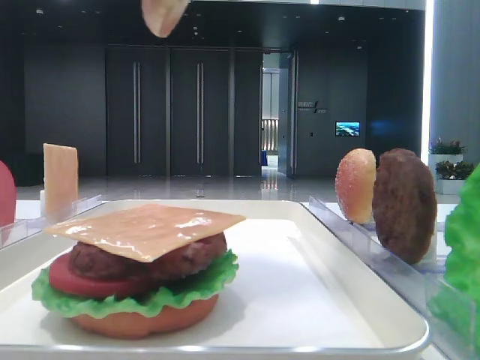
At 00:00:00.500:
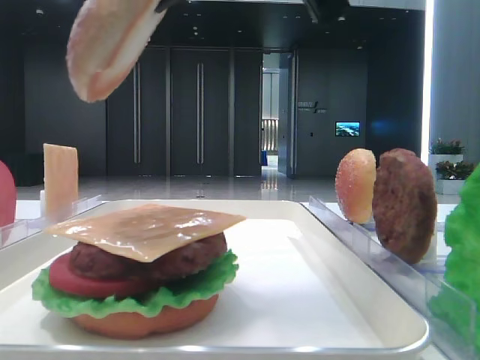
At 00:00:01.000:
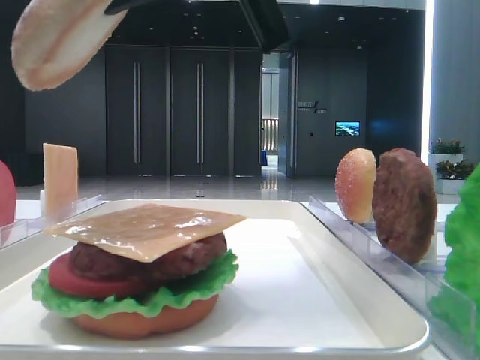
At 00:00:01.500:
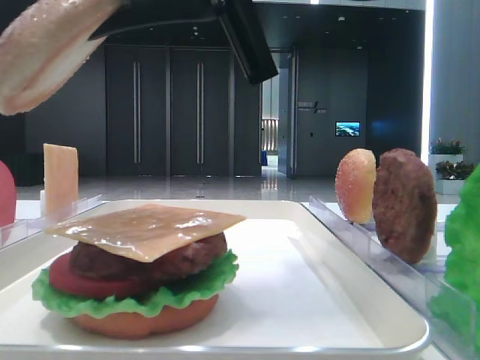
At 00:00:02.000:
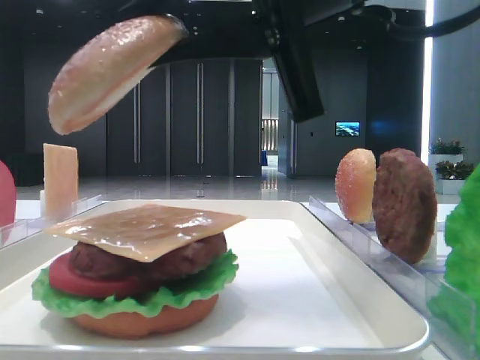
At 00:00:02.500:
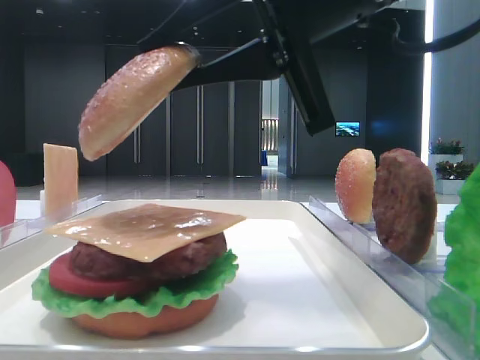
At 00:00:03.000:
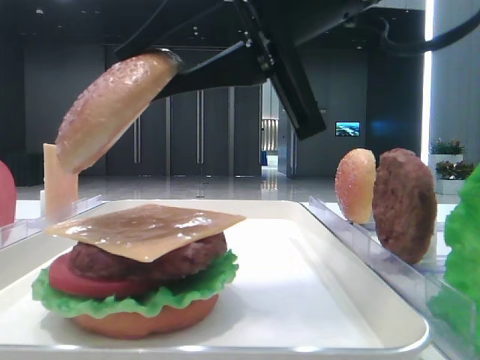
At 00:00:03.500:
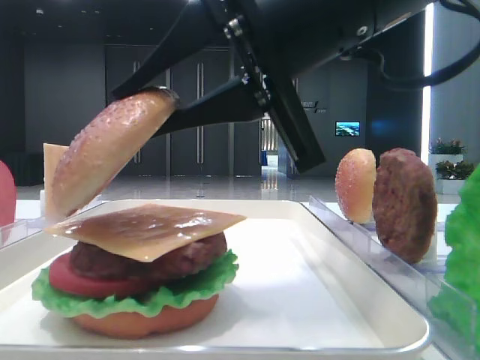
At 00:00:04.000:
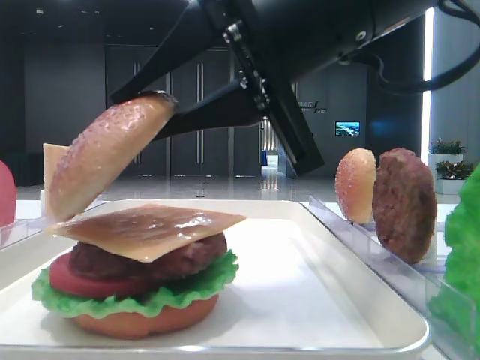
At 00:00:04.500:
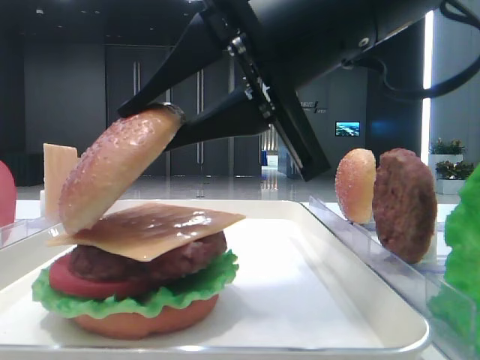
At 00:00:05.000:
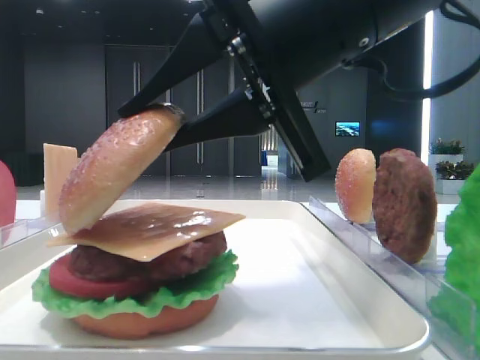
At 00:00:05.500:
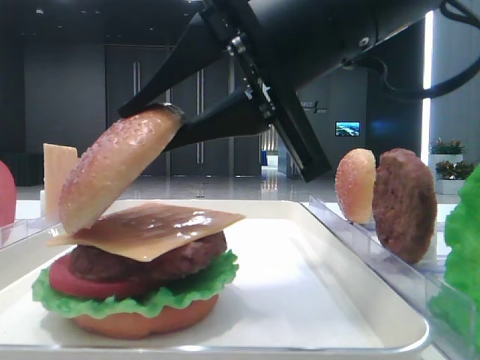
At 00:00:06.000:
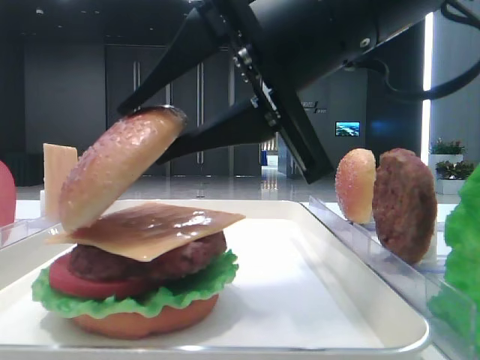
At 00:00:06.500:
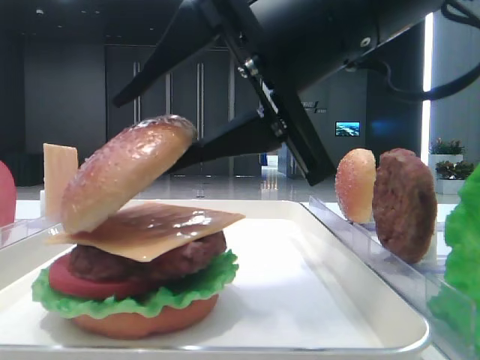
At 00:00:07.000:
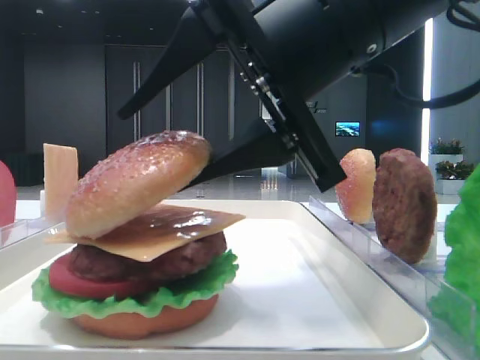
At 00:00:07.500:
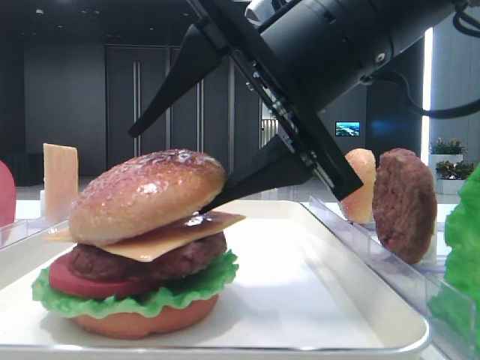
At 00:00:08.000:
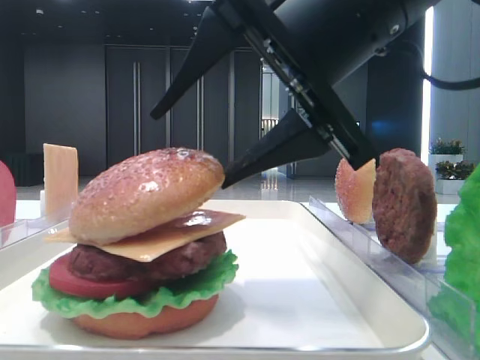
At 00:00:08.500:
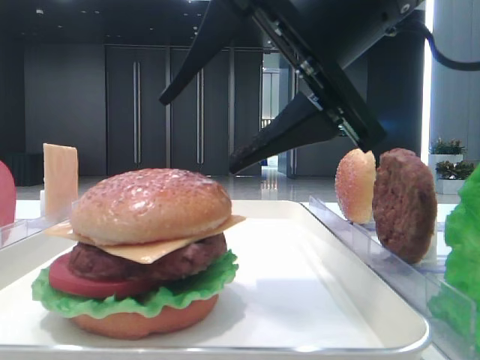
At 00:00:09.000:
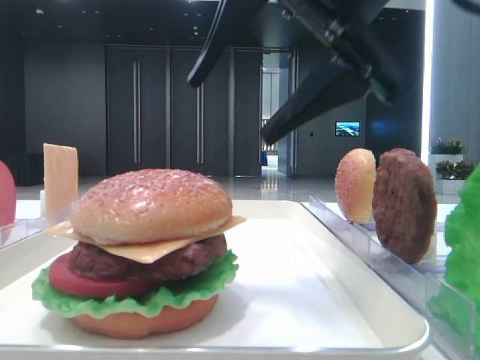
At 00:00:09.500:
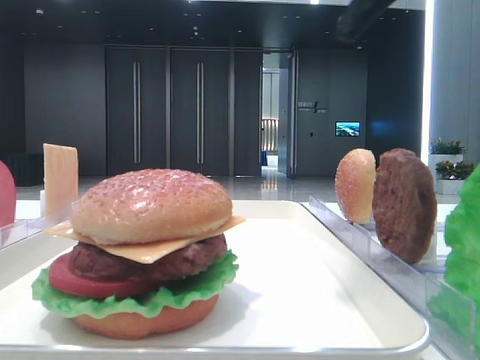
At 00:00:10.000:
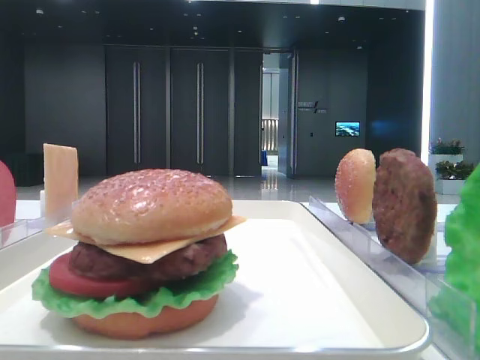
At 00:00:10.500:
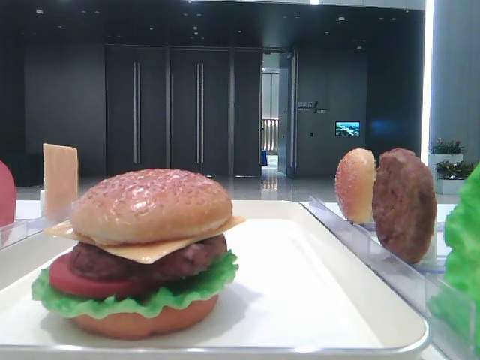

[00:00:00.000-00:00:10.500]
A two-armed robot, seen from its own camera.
Step, 00:00:00.000 to 00:00:08.000: Place the top bread slice on the cheese with the right hand.
00:00:00.000 to 00:00:02.000: The right gripper goes approximately 10 cm downward.
00:00:02.000 to 00:00:04.000: The grippers move only a little.
00:00:04.000 to 00:00:06.500: The right gripper opens.
00:00:06.500 to 00:00:08.500: The right gripper opens.
00:00:08.500 to 00:00:10.500: The right gripper goes some 20 cm to the right and upward.

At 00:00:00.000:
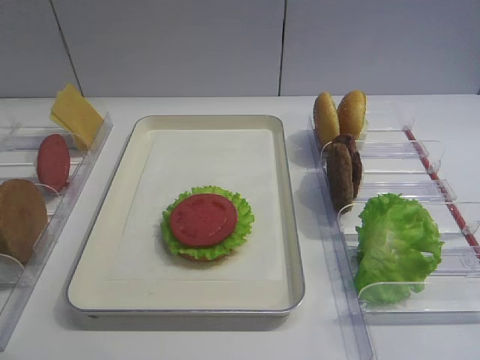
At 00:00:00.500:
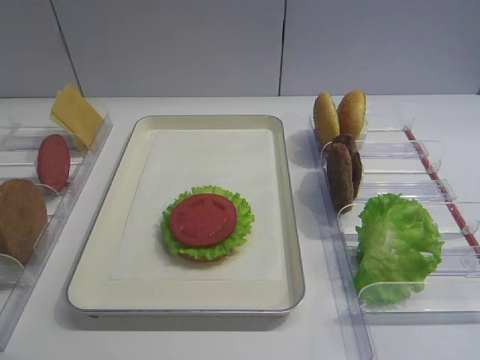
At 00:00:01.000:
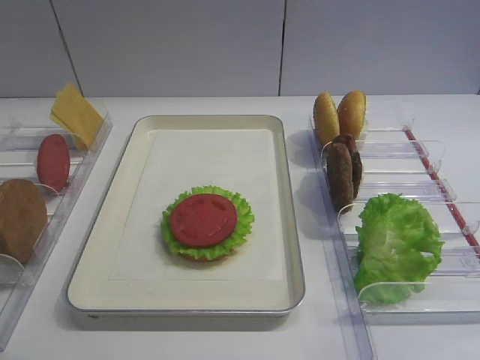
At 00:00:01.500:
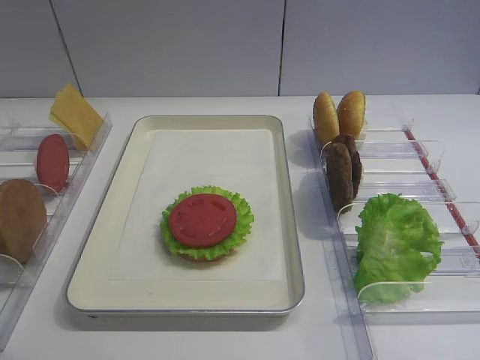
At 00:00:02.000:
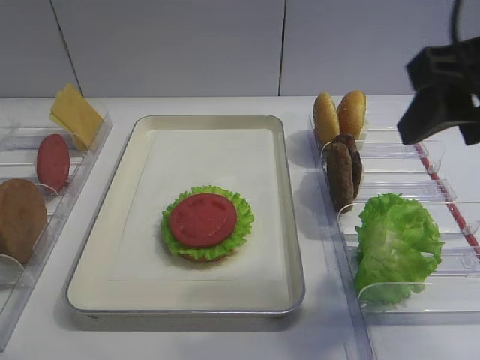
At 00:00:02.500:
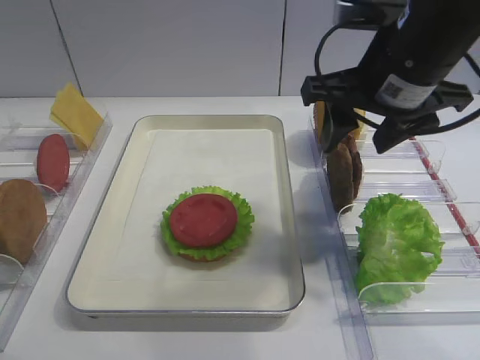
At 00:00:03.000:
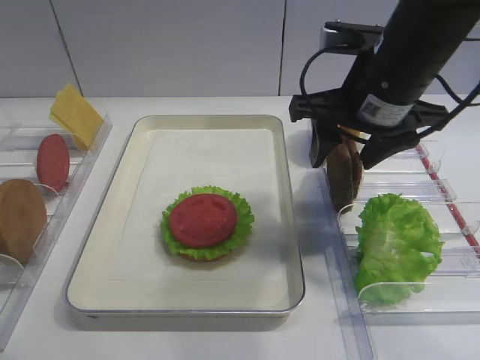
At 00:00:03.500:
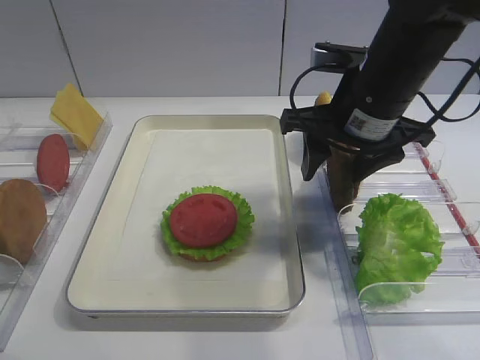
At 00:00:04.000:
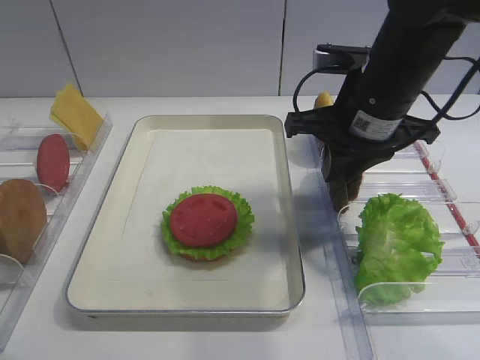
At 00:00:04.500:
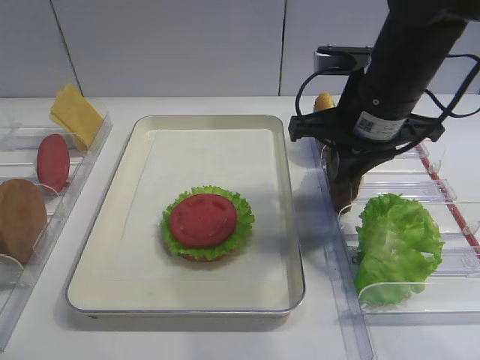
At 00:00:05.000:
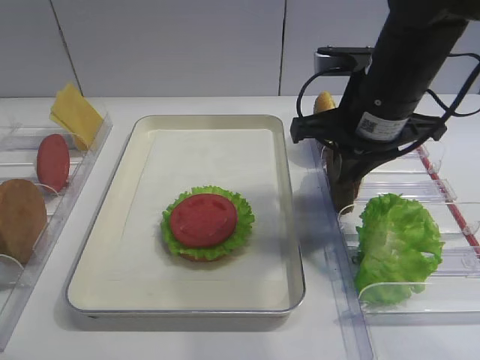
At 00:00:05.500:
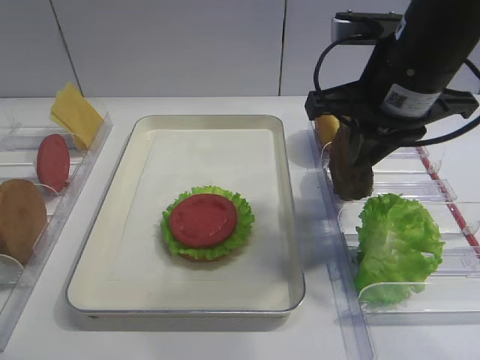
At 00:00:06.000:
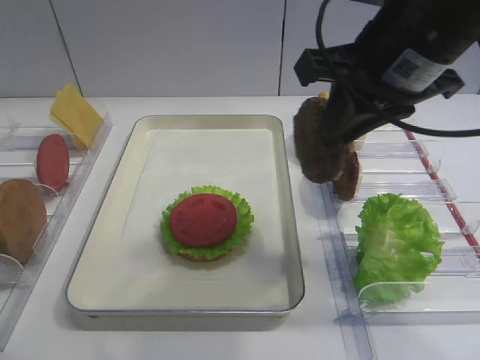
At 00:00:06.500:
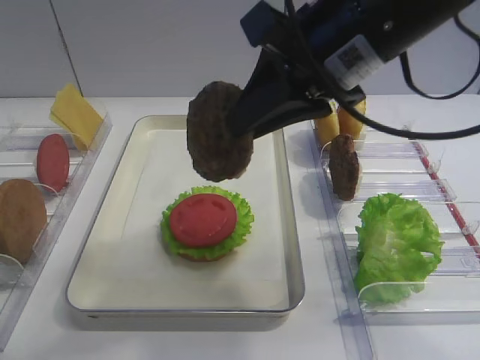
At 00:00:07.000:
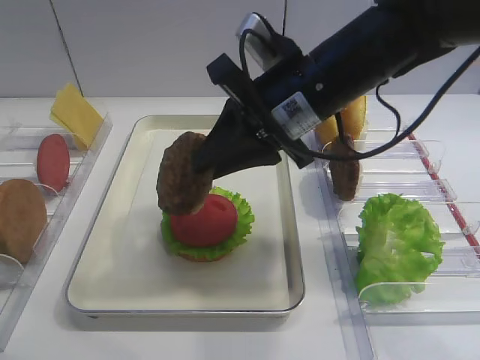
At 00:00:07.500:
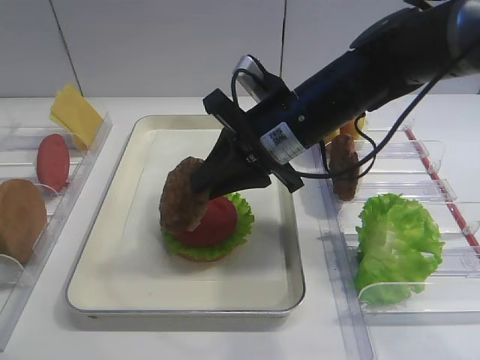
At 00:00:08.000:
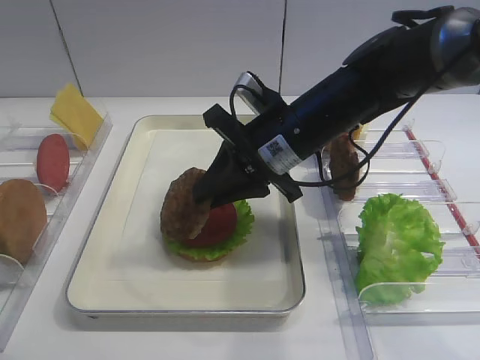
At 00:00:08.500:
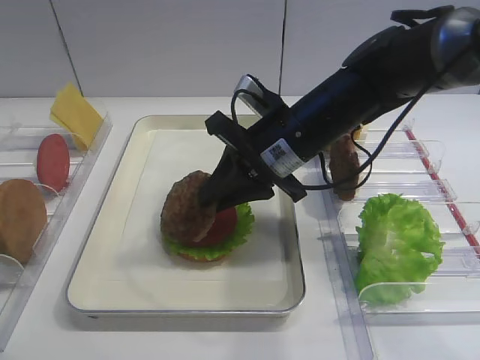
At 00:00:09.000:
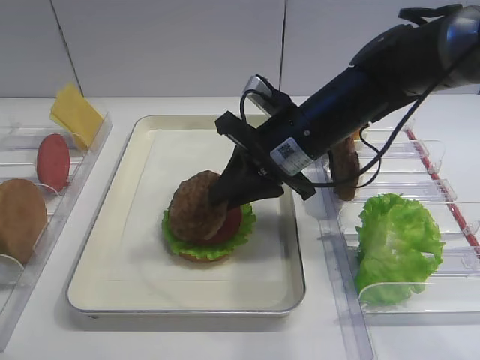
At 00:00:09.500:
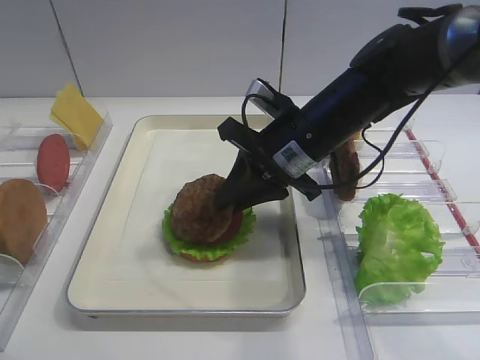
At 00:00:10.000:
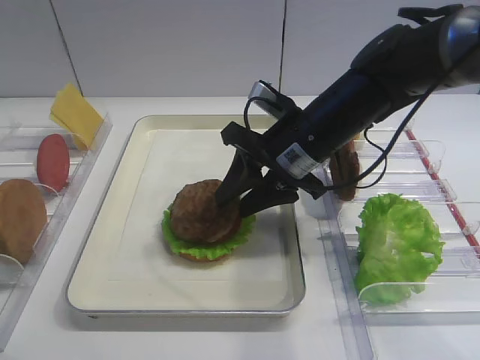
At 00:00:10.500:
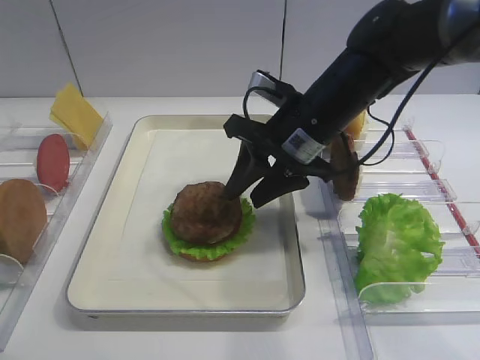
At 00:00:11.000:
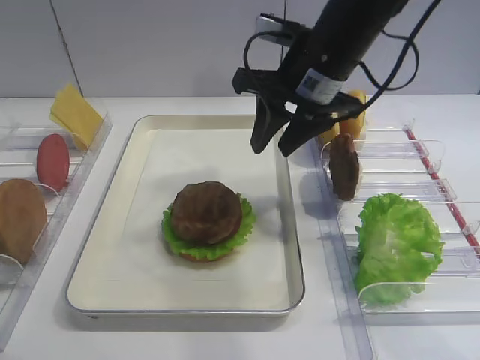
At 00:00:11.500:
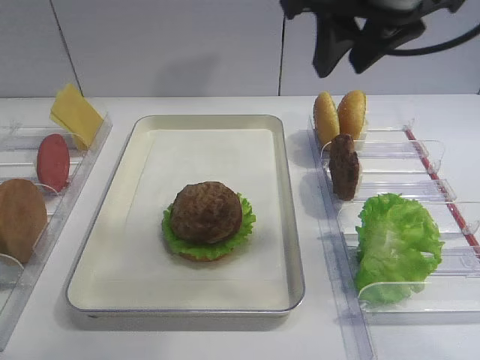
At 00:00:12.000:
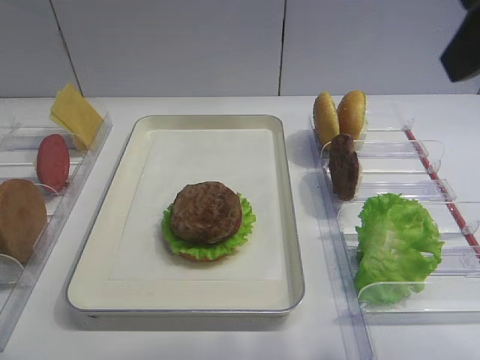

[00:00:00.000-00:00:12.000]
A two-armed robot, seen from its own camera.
Step, 00:00:00.000 to 00:00:05.000: Pick up the cutlet with the right gripper.
Step, 00:00:05.500 to 00:00:10.500: Place the cutlet on the tomato slice with the right gripper.
00:00:02.000 to 00:00:04.000: The right gripper shifts roughly 15 cm forward, downward and to the left, and closes its fingers.
00:00:04.000 to 00:00:06.000: The right gripper is displaced upward and backward by roughly 10 cm.
00:00:06.000 to 00:00:08.000: The right gripper is displaced downward, to the left and forward by approximately 15 cm.
00:00:08.000 to 00:00:10.000: The right gripper opens.
00:00:10.000 to 00:00:12.000: The right gripper heads upward, backward and to the right, covering roughly 30 cm.

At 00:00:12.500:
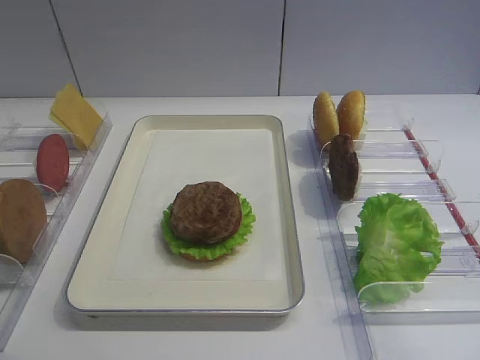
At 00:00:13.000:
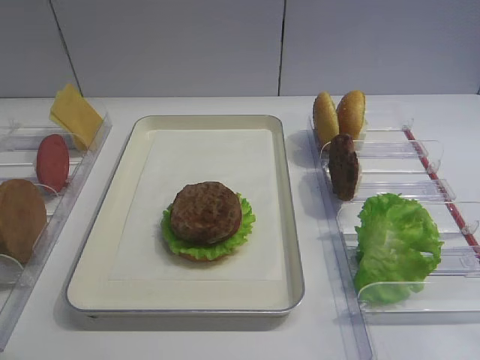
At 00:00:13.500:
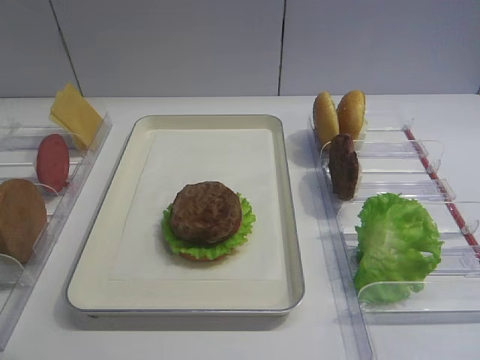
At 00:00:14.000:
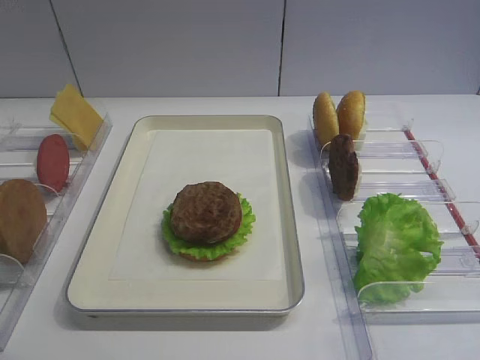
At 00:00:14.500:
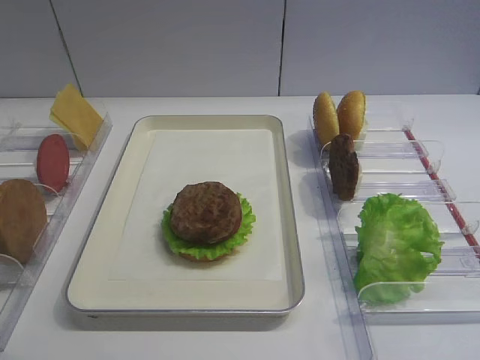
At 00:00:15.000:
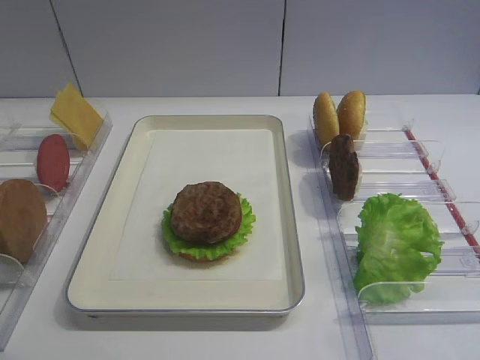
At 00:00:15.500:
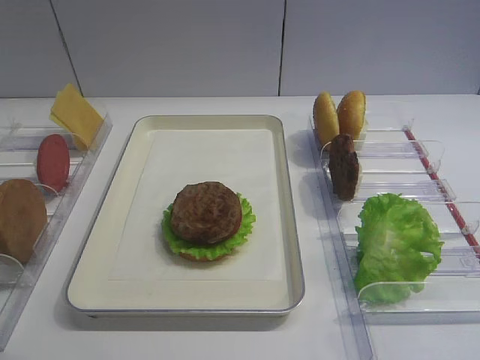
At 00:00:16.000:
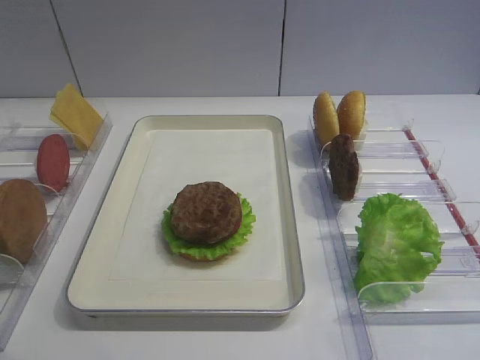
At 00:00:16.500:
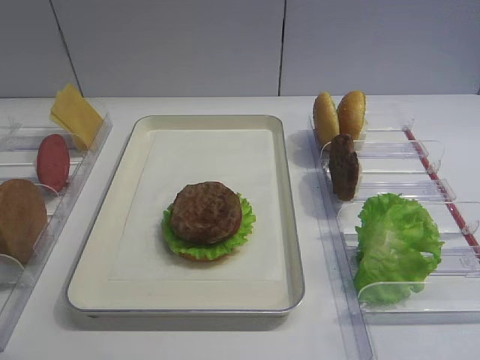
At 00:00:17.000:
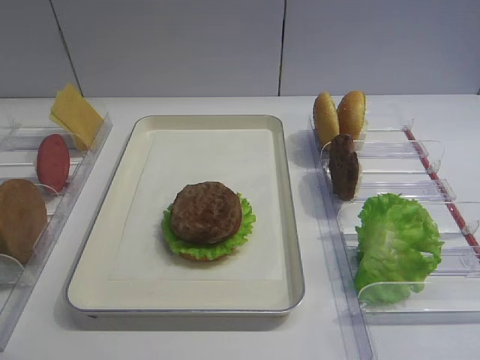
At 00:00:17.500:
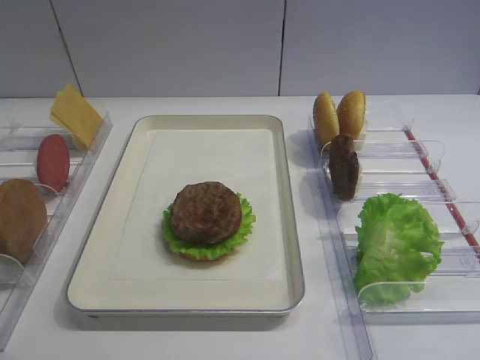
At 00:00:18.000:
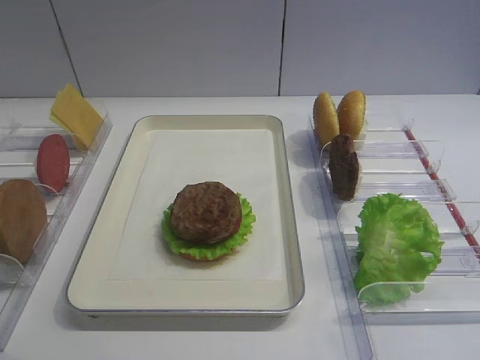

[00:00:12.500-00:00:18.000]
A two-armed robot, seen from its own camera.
00:00:14.500 to 00:00:18.000: Both grippers stay about where they are.
